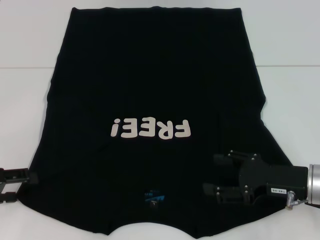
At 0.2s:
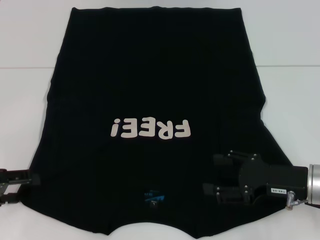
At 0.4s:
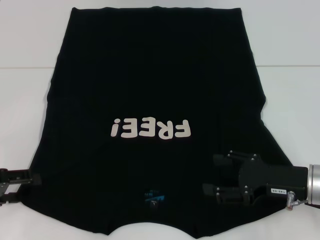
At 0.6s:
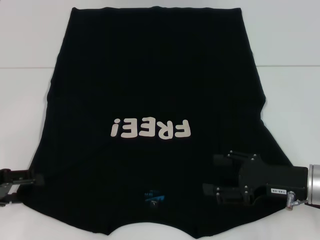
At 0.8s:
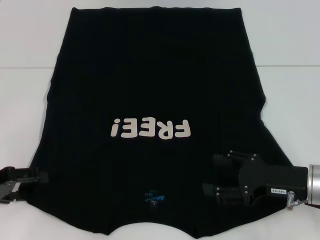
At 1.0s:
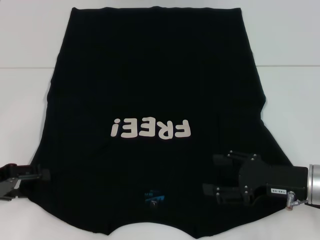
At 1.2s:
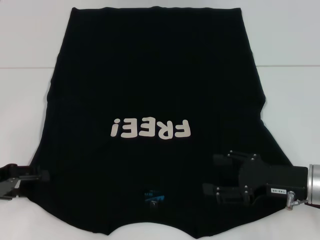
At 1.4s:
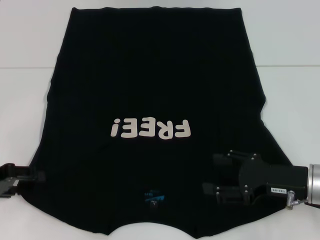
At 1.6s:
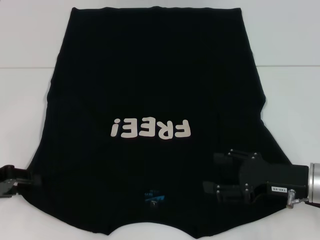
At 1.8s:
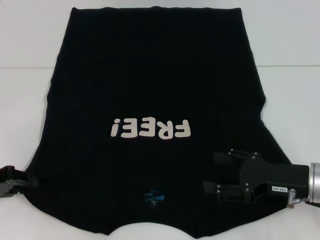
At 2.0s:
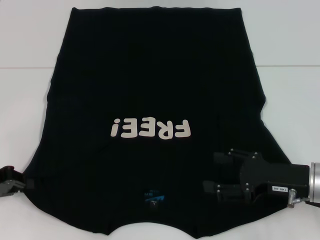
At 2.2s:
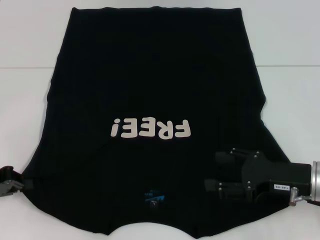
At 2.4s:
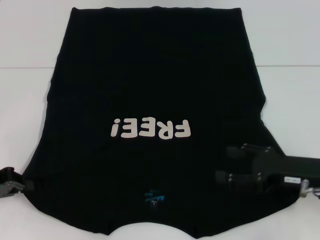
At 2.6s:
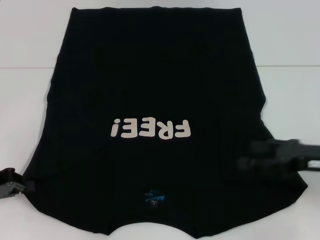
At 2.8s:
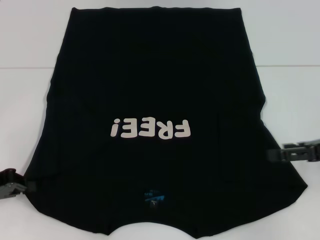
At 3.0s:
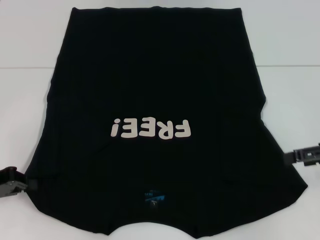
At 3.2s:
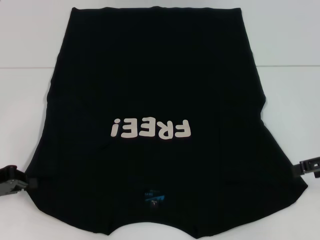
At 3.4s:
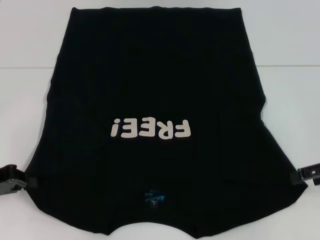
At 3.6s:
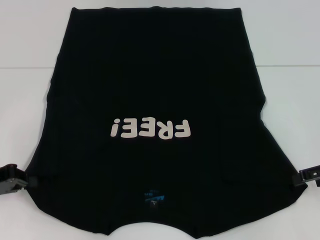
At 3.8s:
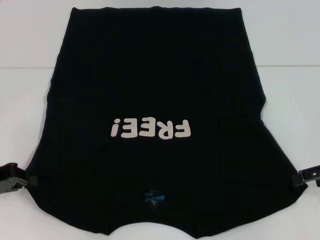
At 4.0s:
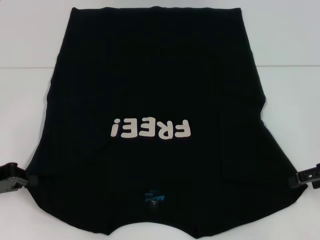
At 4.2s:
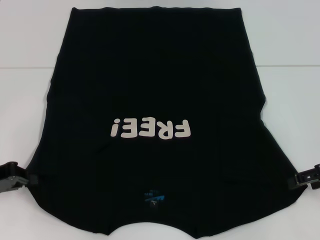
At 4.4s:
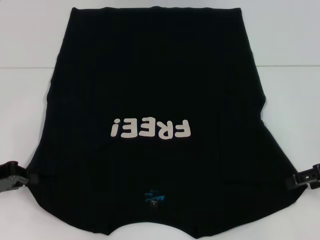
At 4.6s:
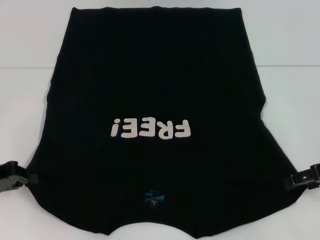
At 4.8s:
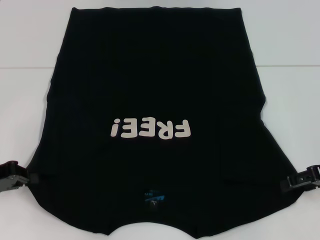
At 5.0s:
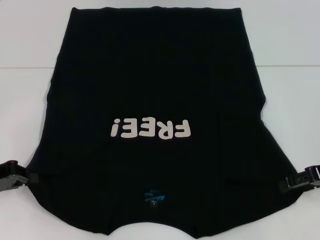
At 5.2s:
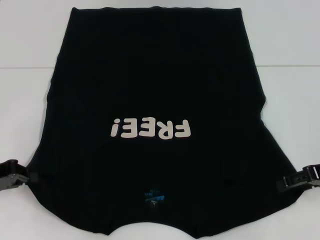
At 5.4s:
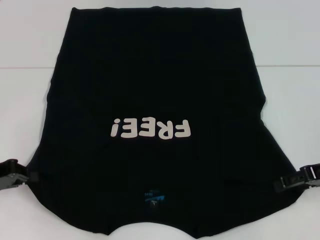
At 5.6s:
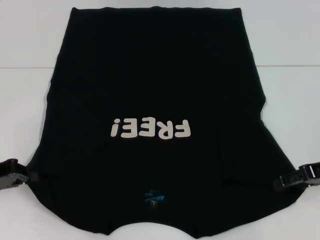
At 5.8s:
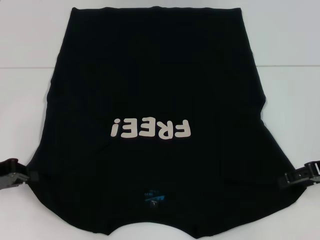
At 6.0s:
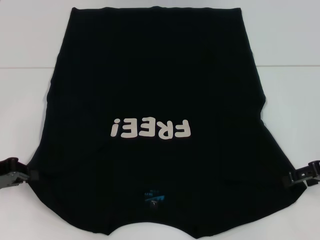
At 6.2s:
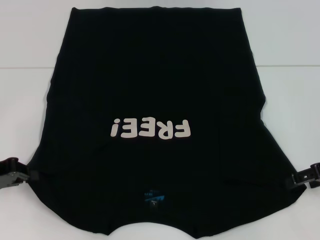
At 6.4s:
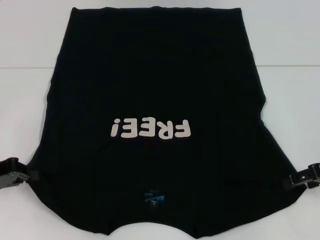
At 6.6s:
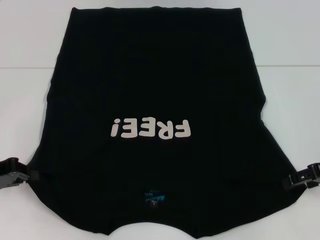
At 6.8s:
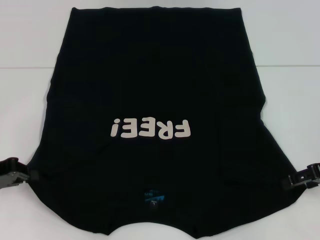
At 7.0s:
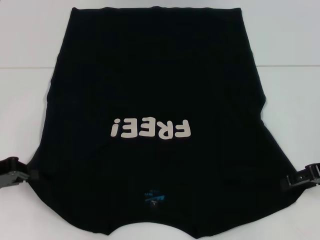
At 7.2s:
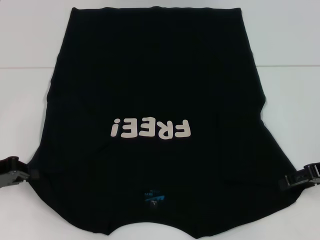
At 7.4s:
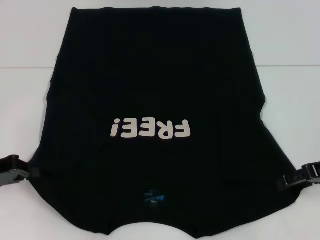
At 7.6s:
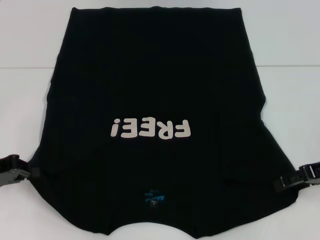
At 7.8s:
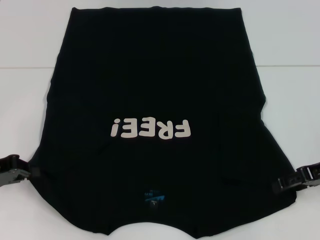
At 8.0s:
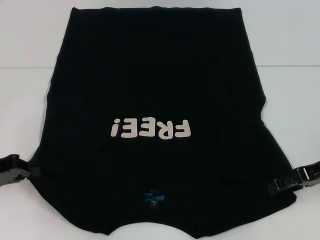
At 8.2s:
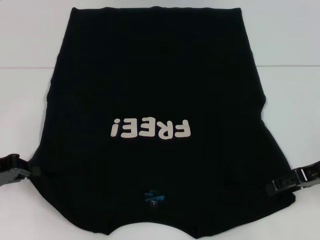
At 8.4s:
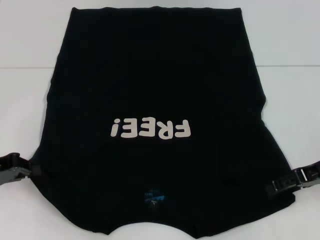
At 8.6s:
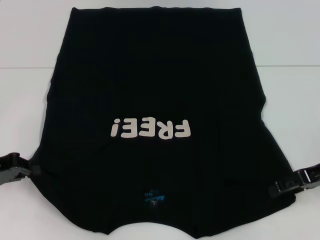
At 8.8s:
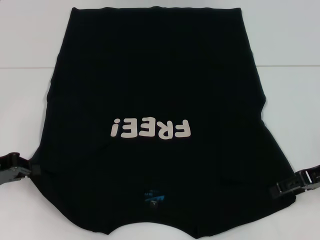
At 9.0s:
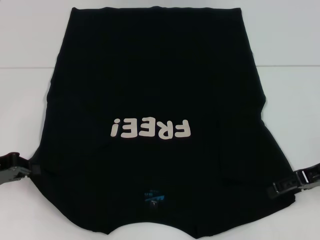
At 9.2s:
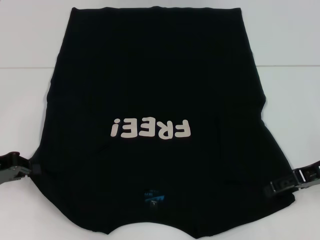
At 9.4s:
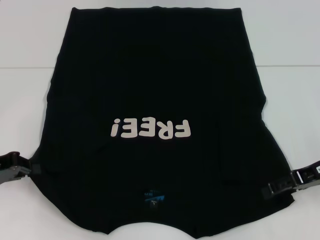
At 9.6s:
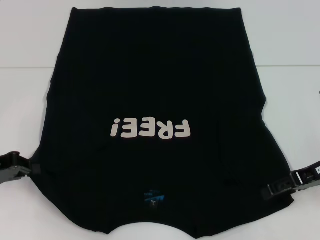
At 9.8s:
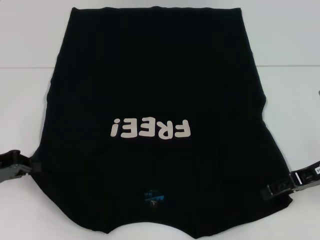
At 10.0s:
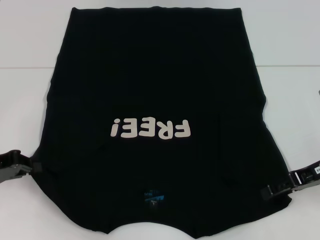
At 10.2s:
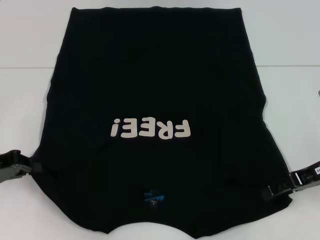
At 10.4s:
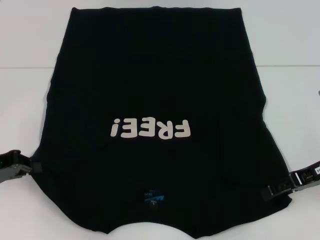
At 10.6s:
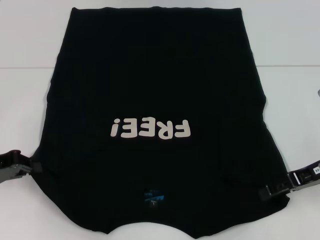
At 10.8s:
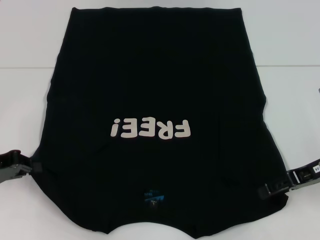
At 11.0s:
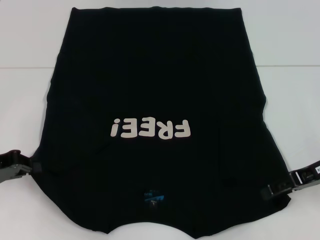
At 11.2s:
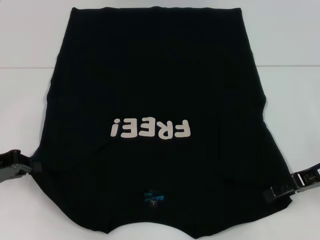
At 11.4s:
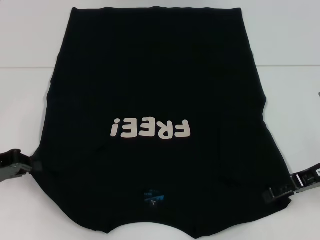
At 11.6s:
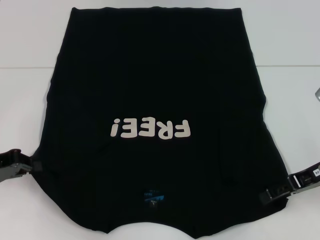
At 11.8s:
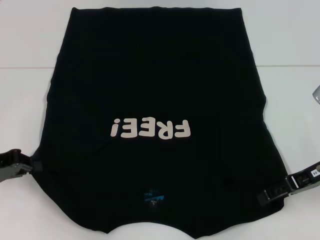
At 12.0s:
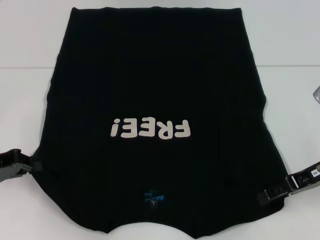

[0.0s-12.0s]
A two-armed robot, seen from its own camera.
Step, 0.0s to 2.8s: Grab the bottom left corner with your left hand.
0.0s to 1.6s: The grippers make only small movements.
1.6s to 3.0s: The left gripper closes. Meanwhile the right gripper shifts some 15 cm upward and to the right.
3.0s to 6.0s: The grippers make only small movements.
6.0s to 7.6s: Both grippers stay put.
7.6s to 9.0s: Both grippers stay about where they are.
9.0s to 10.4s: Both grippers stay about where they are.
10.4s to 12.0s: Neither gripper changes place.

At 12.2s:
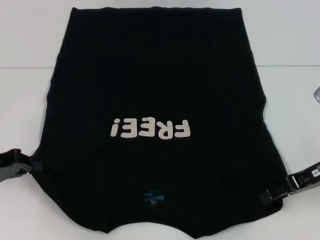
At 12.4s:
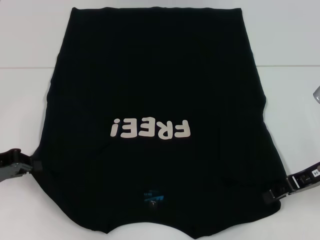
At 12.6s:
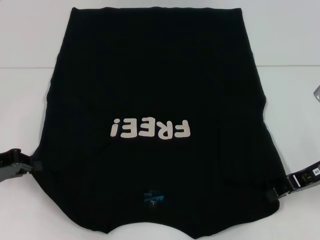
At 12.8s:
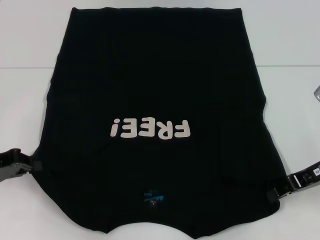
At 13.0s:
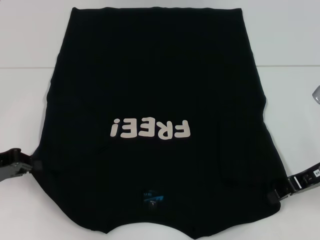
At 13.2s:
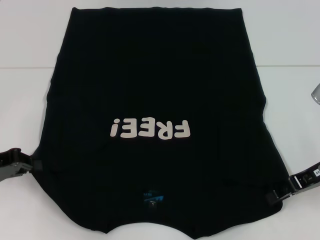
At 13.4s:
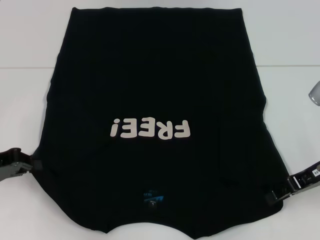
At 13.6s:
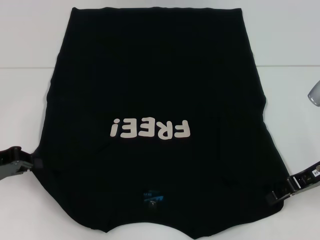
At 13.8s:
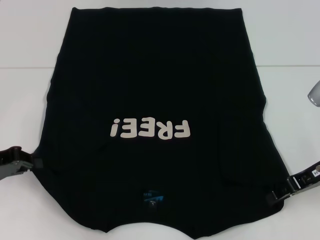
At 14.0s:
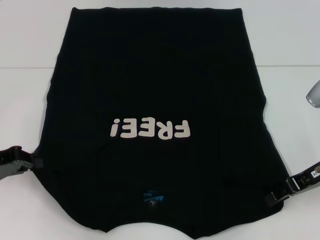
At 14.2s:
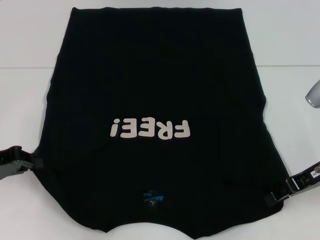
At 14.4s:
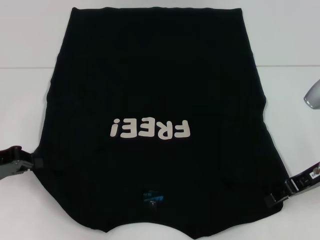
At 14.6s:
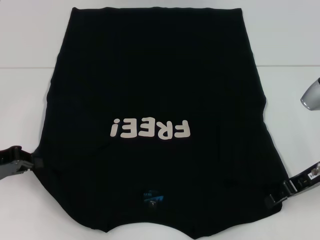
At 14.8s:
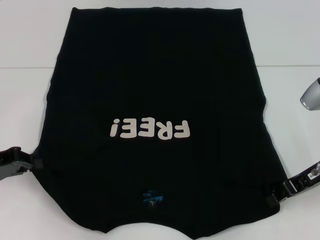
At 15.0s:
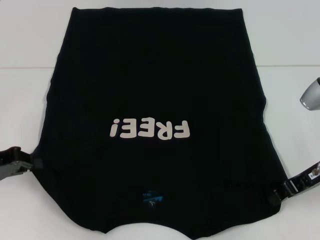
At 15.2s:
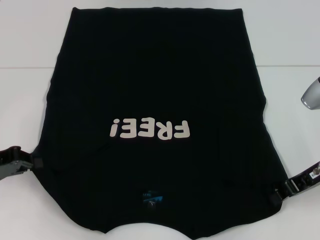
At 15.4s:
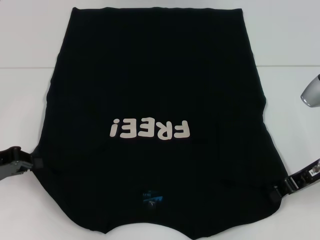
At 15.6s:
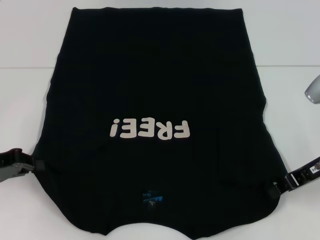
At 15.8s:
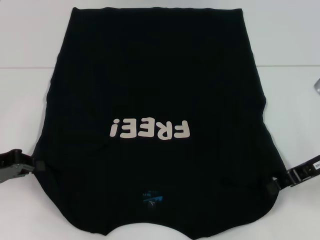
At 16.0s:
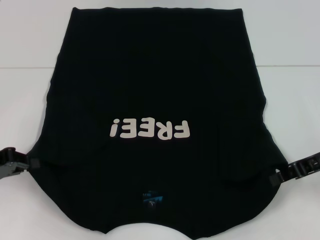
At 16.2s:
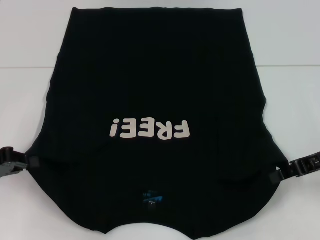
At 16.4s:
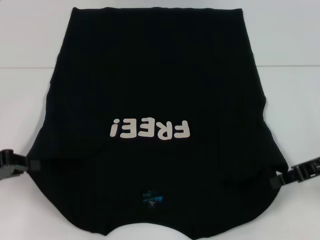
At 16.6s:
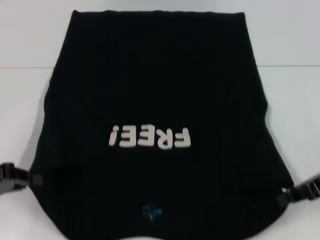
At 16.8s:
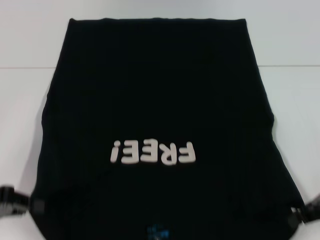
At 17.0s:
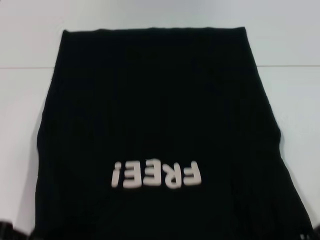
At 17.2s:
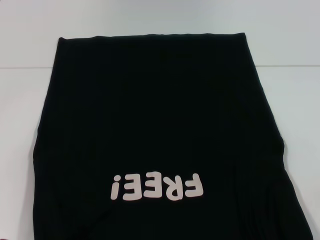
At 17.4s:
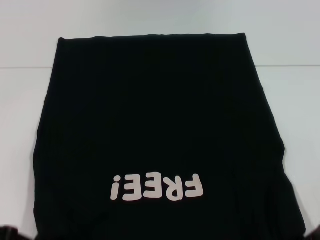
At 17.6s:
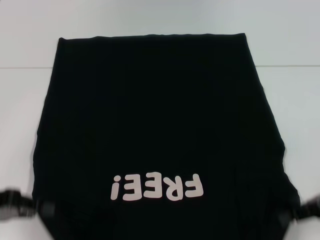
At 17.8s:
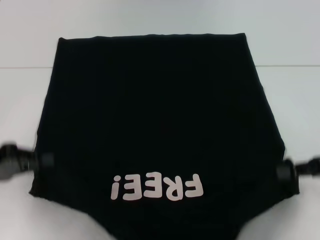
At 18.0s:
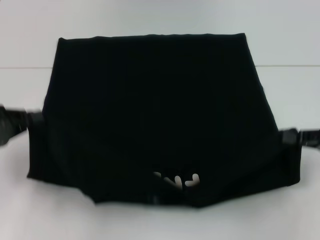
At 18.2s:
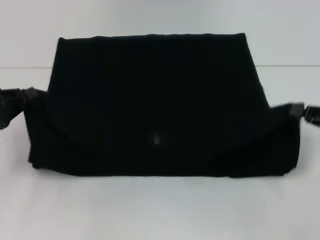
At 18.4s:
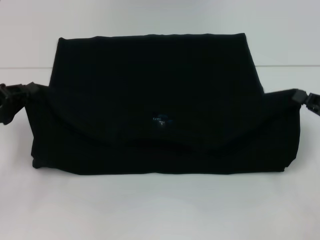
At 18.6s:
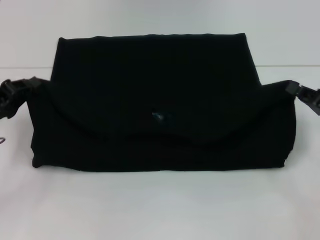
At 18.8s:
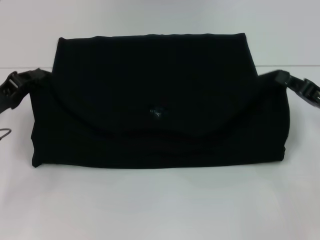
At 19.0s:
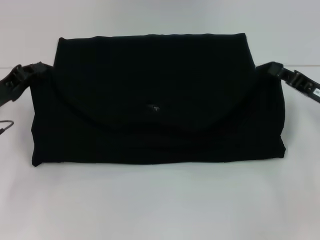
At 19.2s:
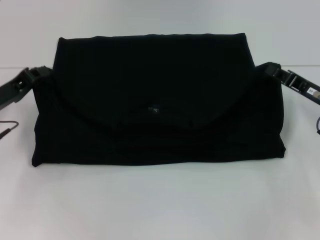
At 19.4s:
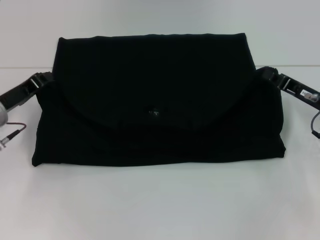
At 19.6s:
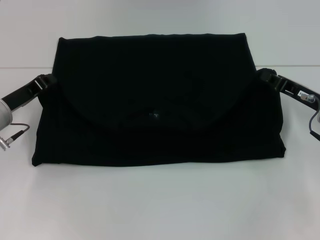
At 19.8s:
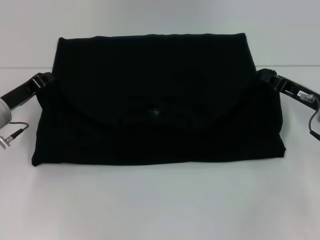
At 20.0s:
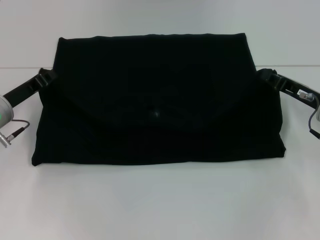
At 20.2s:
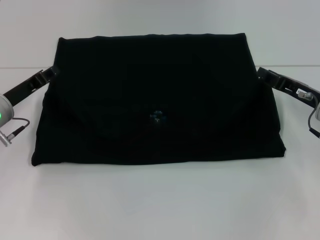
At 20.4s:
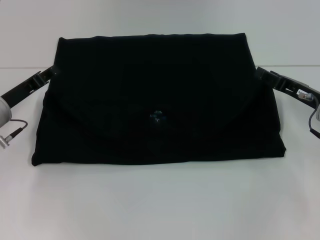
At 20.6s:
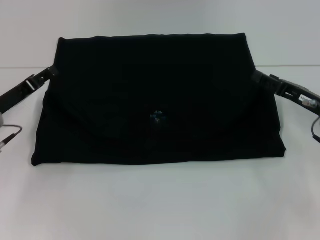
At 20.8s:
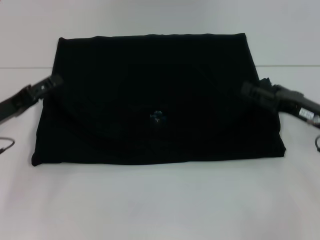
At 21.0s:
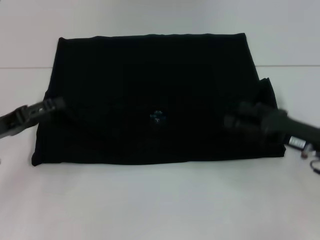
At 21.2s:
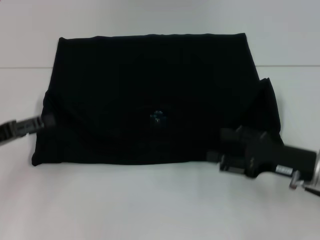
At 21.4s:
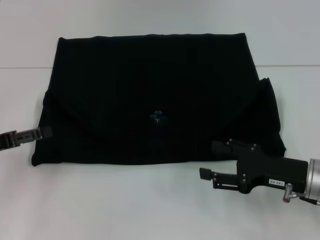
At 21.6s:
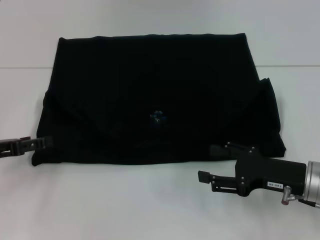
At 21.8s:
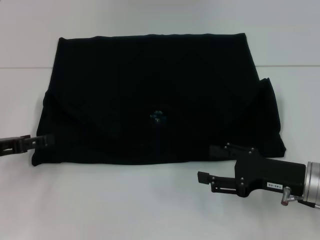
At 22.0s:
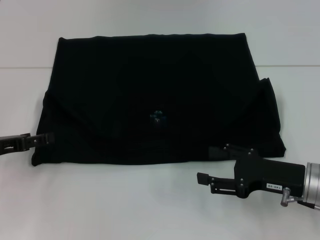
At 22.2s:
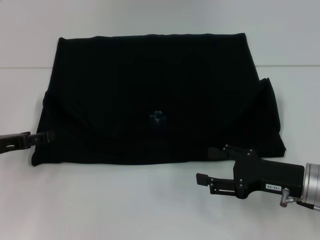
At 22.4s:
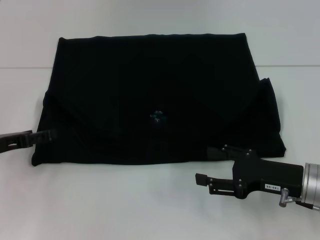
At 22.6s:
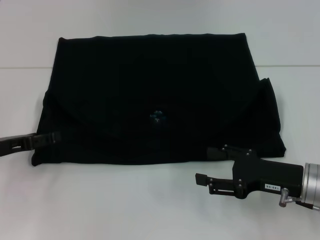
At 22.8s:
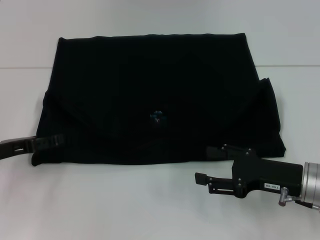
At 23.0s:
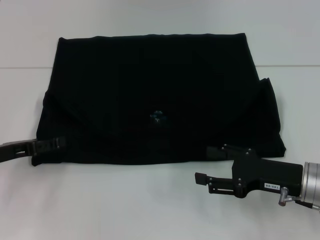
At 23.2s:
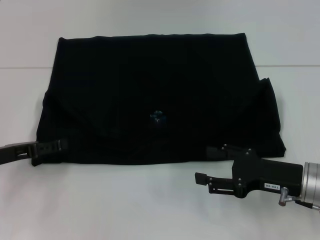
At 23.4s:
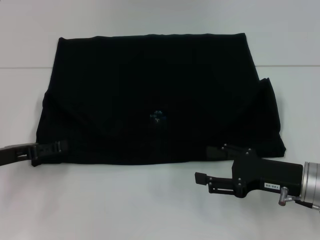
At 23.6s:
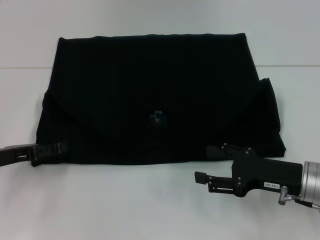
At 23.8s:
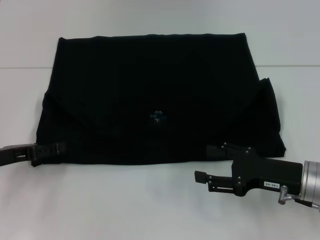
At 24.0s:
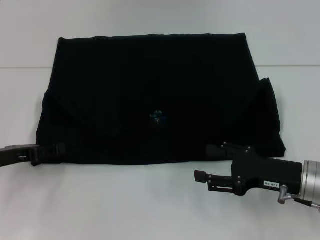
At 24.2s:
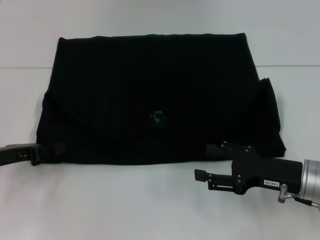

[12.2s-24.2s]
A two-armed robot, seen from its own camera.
Step, 12.2s to 16.0s: Grab the bottom right corner with your right hand.
Step, 16.2s to 20.6s: Fold the clothes with your left hand.
Step, 16.2s to 20.6s: Fold the clothes with your right hand.
12.2s to 13.8s: Both grippers stay about where they are.
13.8s to 15.2s: The right gripper closes up.
15.2s to 16.6s: The grippers move only a little.
16.6s to 18.2s: The right gripper changes place by roughly 5 cm.
18.2s to 19.8s: The right gripper heads to the left and forward, covering about 10 cm. Meanwhile the left gripper travels forward and to the right by some 10 cm.
19.8s to 21.2s: The right gripper is displaced backward by some 10 cm, and opens its fingers; the left gripper is displaced backward and to the left by approximately 10 cm, and opens its fingers.
21.2s to 24.2s: There are only small adjustments of the grippers.
